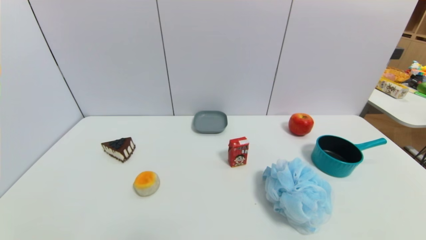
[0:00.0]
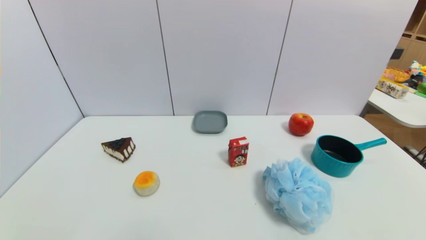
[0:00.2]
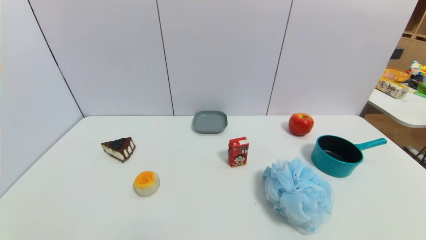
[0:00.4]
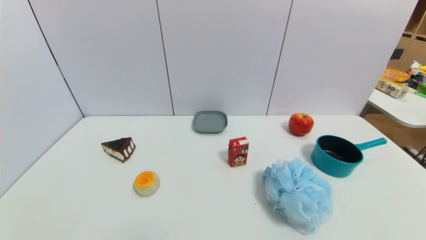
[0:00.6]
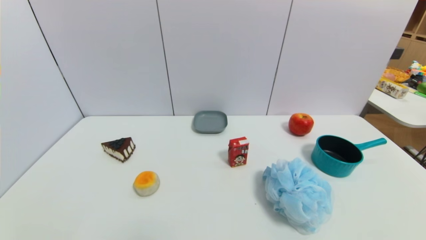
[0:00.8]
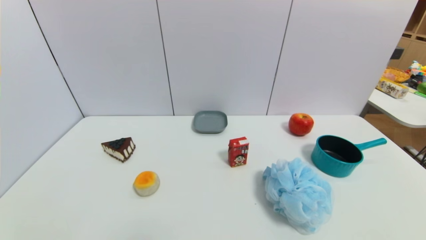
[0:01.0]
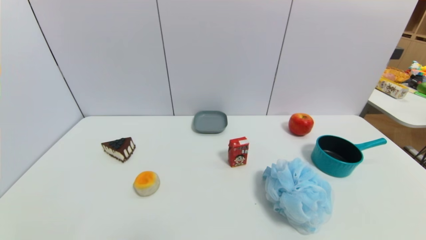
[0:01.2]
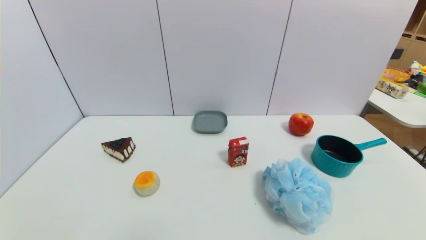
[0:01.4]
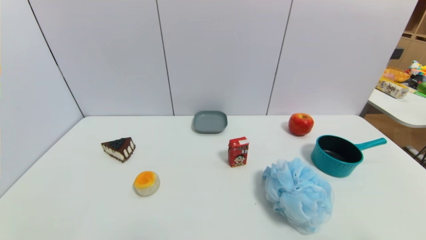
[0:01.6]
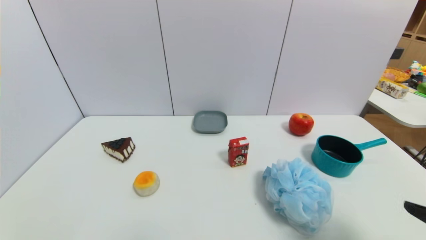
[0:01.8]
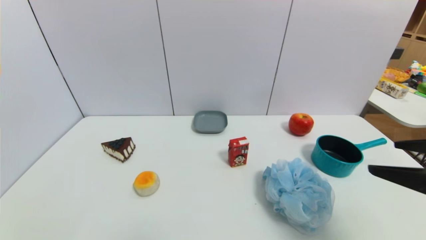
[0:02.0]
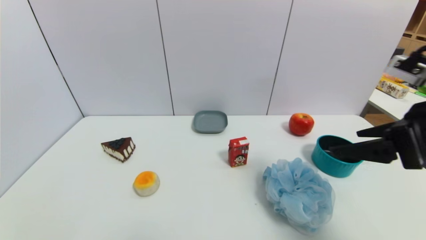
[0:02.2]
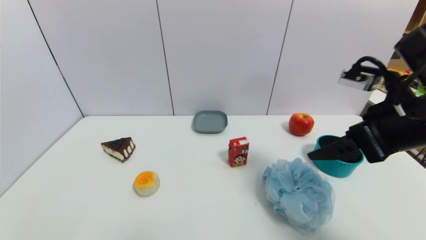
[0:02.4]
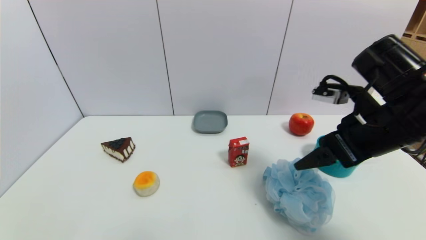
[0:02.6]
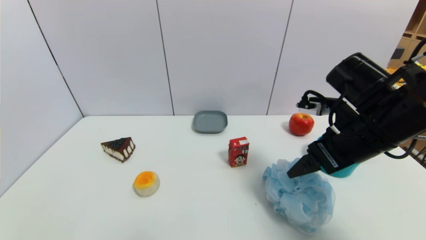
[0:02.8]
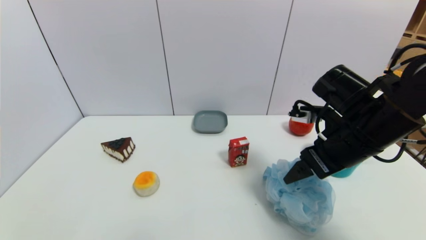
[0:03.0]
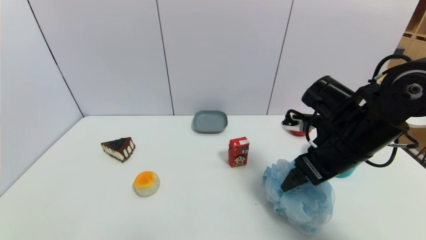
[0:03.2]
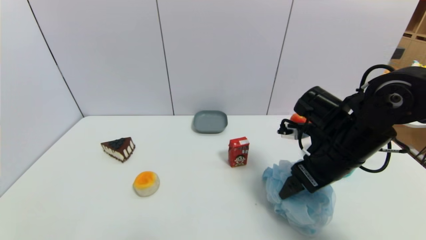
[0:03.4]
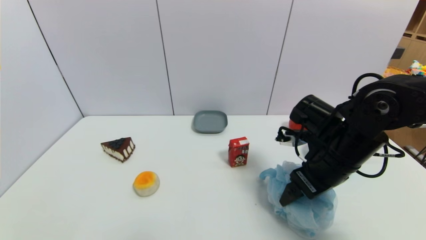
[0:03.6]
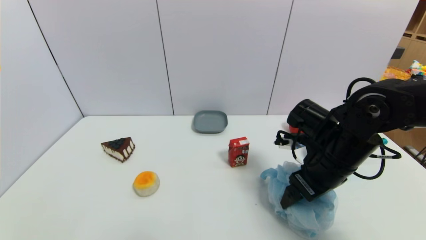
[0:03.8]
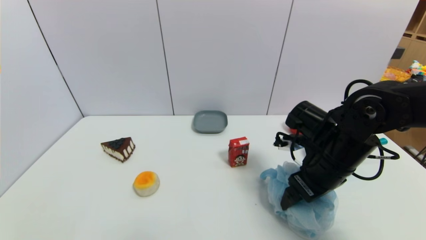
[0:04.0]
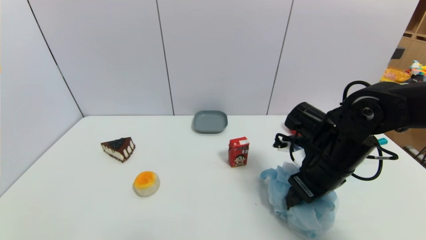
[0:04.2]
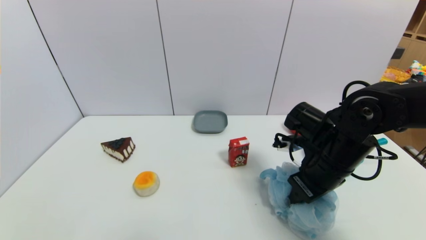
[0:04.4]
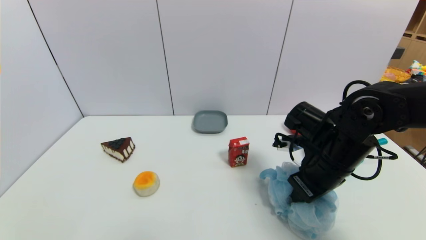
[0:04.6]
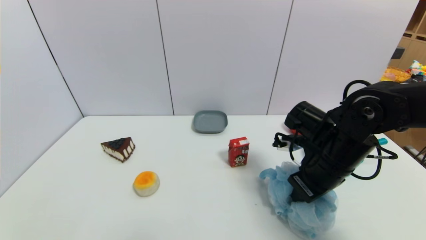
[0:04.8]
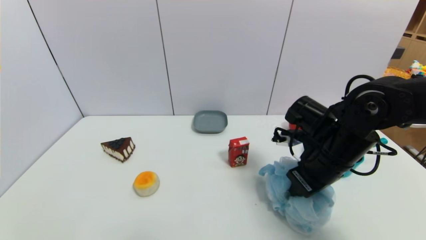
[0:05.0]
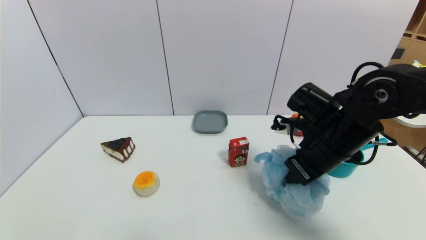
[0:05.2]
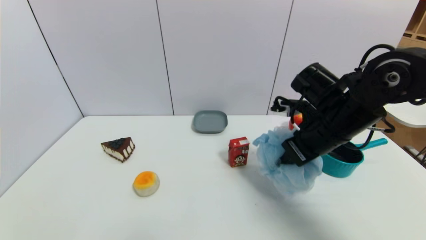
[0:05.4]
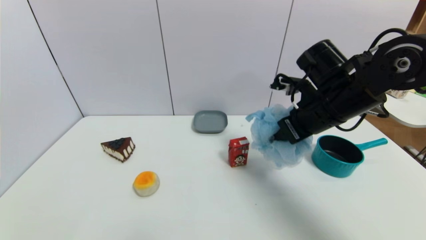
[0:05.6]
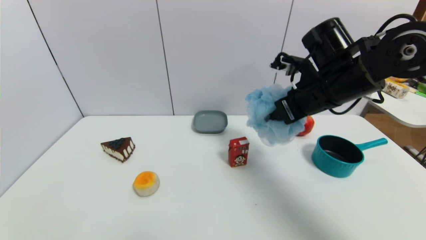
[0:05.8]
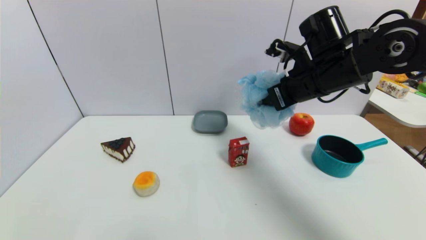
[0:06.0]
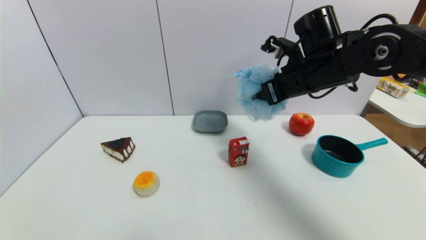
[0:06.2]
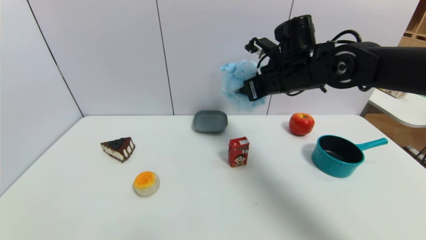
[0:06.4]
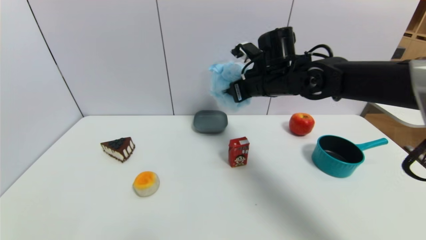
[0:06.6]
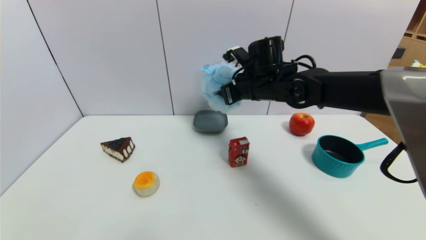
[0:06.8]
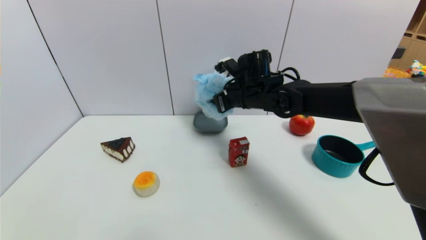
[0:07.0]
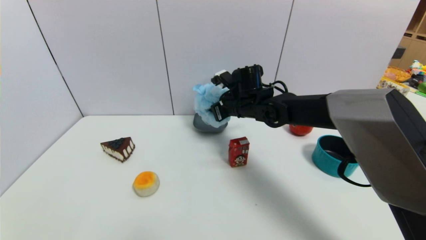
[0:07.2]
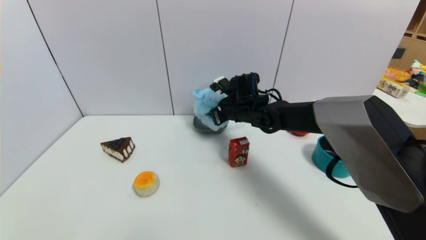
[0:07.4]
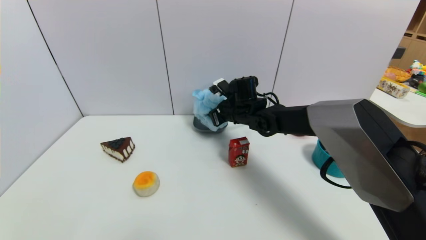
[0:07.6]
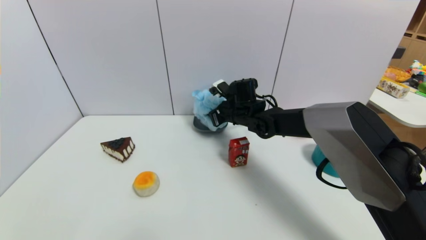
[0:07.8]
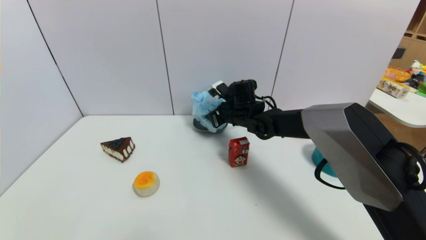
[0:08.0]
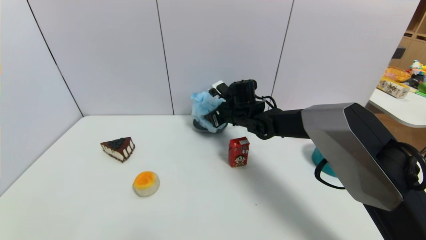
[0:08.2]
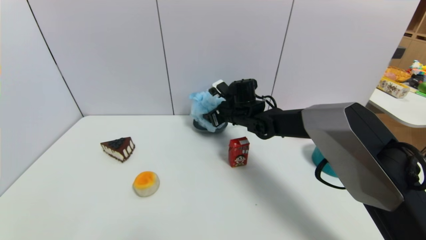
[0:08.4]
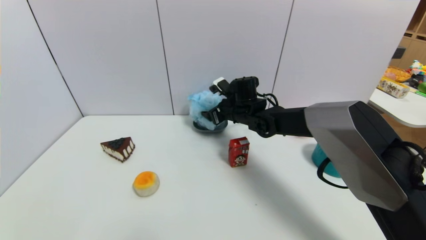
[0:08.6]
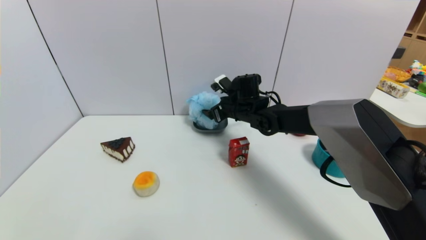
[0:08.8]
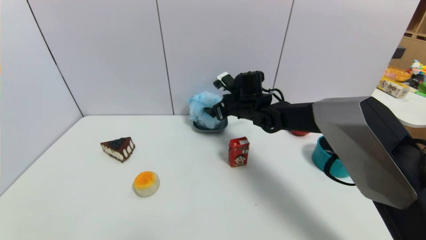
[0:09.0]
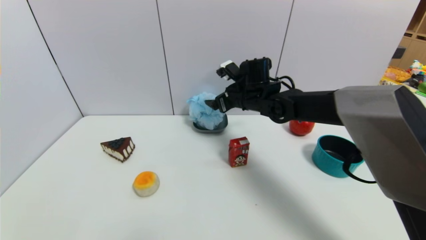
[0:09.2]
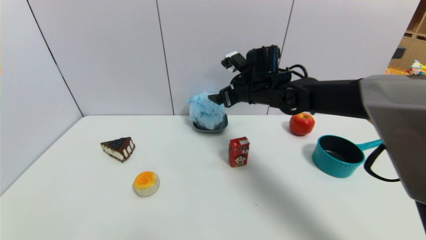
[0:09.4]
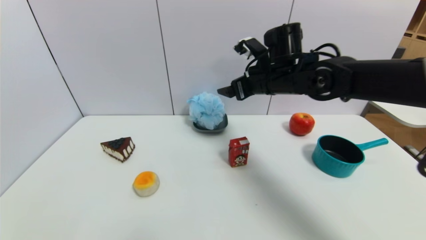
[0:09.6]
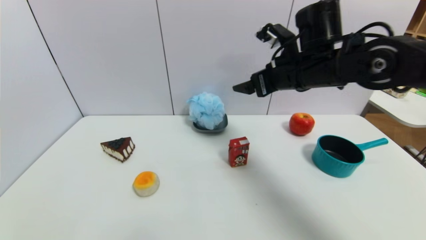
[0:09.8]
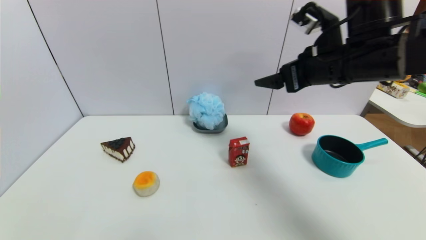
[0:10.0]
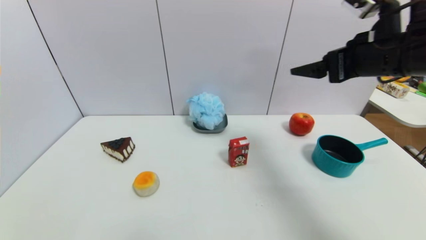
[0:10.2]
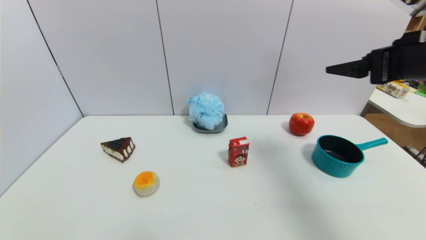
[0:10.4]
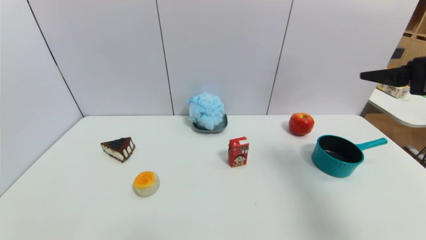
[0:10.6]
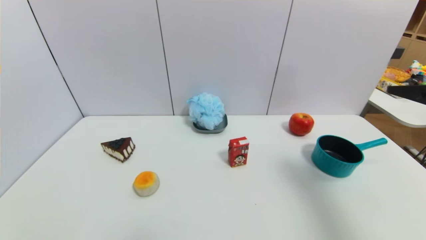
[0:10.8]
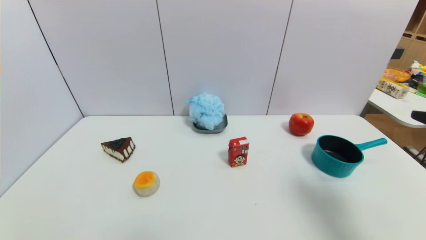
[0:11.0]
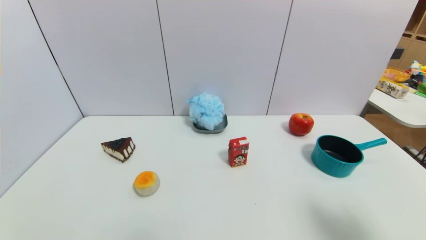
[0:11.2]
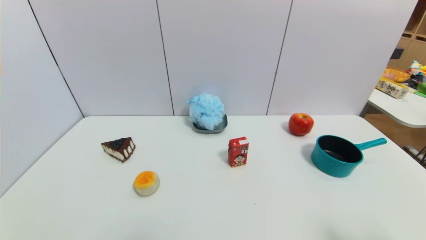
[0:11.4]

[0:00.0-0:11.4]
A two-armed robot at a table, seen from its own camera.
Task of the whole recording: use a gripper to pick the target object and place on the dish.
Step, 0:00.0 to 0:04.4: Grasp the shower sphere with the right gripper.
Step, 0:04.6 to 0:09.4: Place the shower sphere on the dish with the right gripper.
0:01.4 to 0:02.8: The right gripper is displaced forward and to the left by some 30 cm.
0:02.8 to 0:04.2: The right gripper goes roughly 10 cm downward, and closes up.
0:04.2 to 0:05.6: The right gripper is displaced upward by approximately 10 cm, and closes its fingers.
0:05.6 to 0:07.2: The right gripper goes about 20 cm forward, to the left and downward.
0:07.2 to 0:08.6: The right gripper opens up.
0:08.6 to 0:10.0: The right gripper goes roughly 25 cm upward, backward and to the right.
0:10.0 to 0:11.4: The right gripper goes about 30 cm backward, to the right and downward.

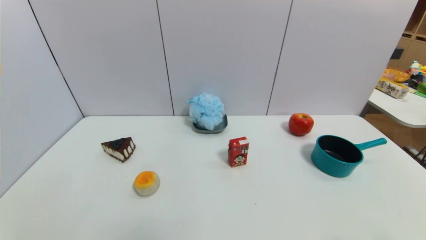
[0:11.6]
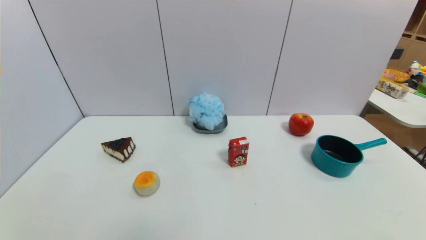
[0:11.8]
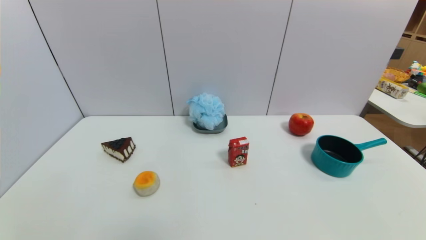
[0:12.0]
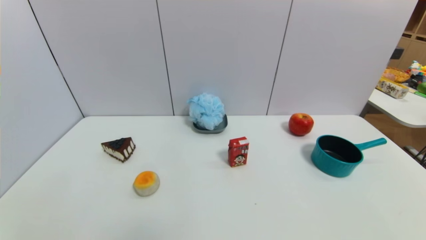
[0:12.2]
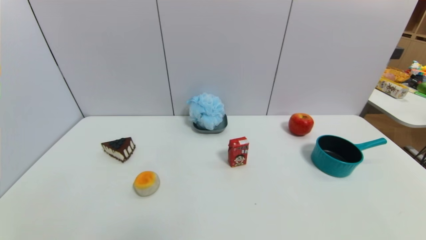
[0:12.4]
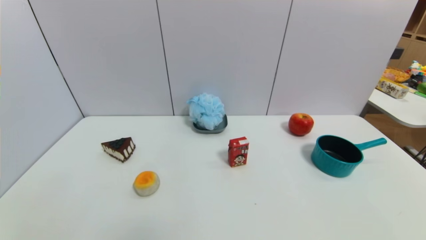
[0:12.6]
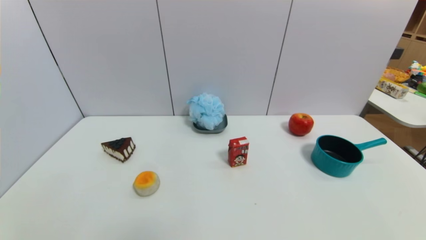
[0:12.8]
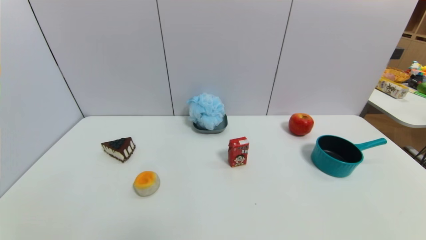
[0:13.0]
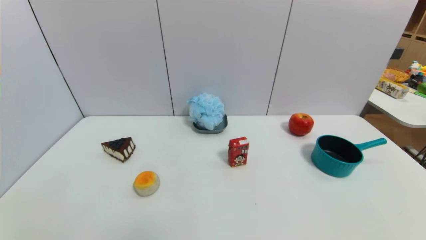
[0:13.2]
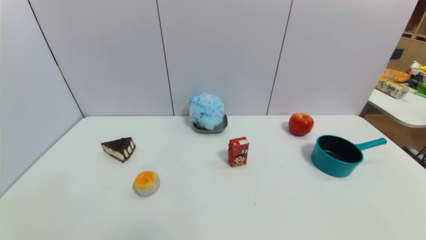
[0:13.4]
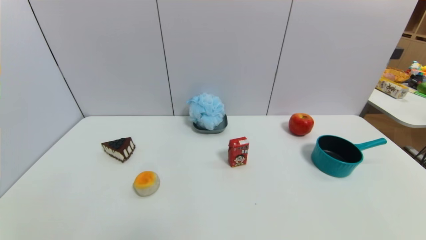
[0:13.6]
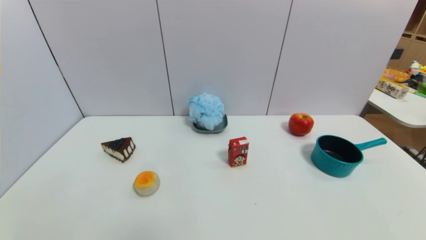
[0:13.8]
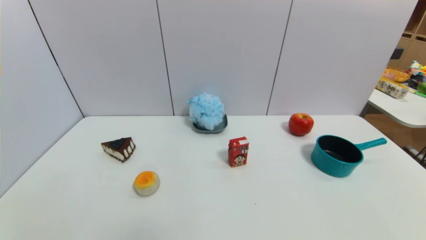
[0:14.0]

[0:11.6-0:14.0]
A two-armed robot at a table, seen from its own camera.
Task of the whole recording: use a gripper to pick the target object and place on the dish.
0:12.8 to 0:14.0: Neither gripper changes place.

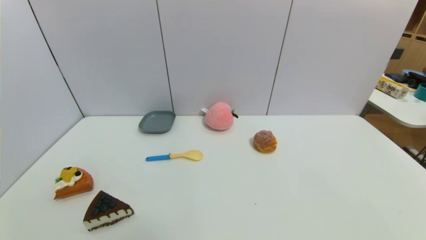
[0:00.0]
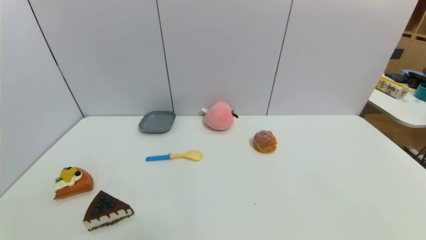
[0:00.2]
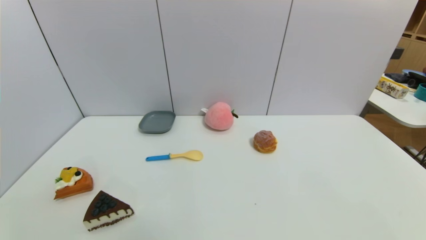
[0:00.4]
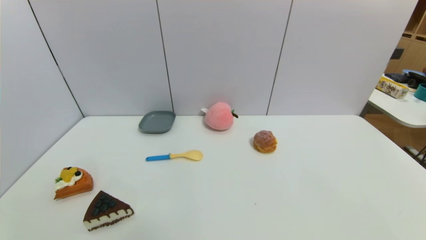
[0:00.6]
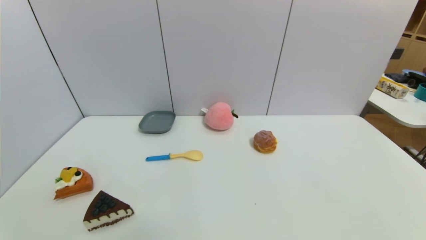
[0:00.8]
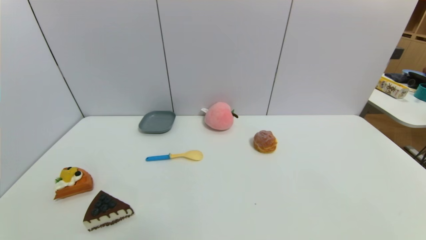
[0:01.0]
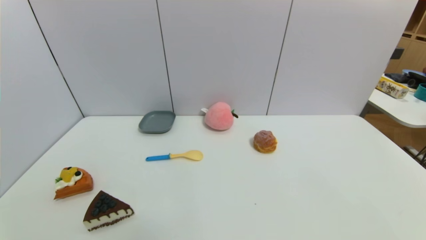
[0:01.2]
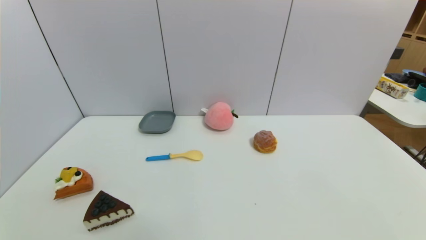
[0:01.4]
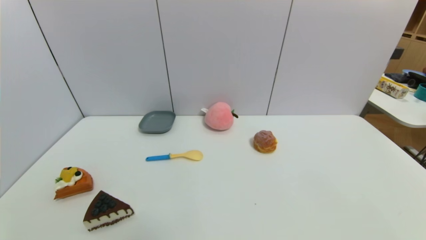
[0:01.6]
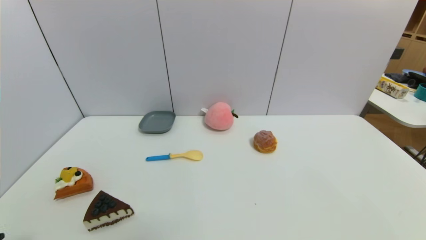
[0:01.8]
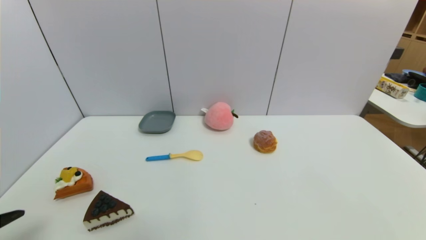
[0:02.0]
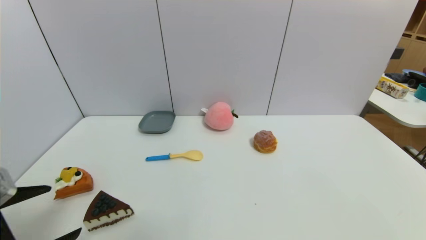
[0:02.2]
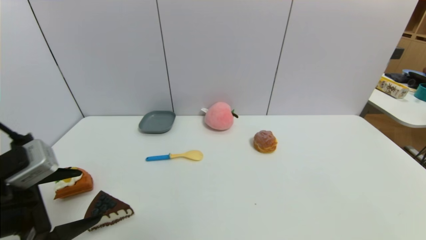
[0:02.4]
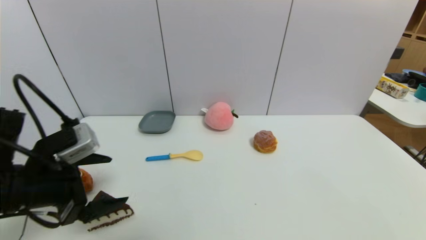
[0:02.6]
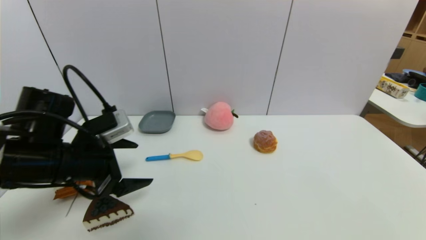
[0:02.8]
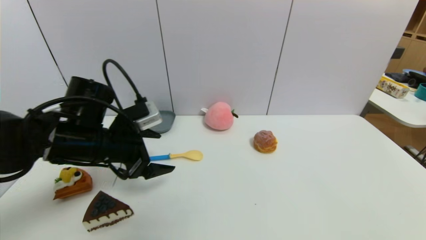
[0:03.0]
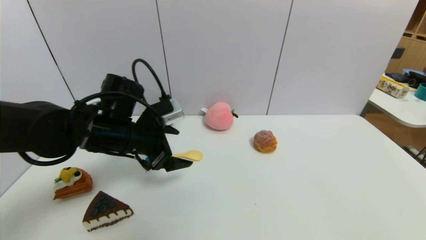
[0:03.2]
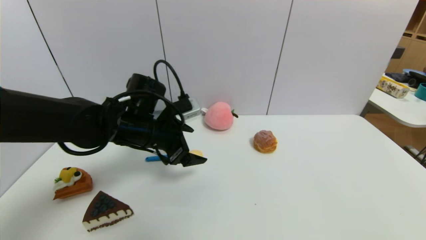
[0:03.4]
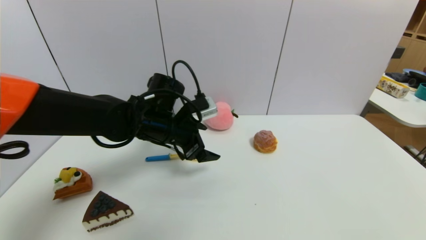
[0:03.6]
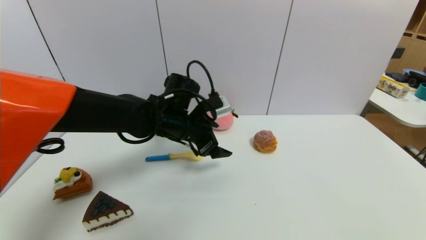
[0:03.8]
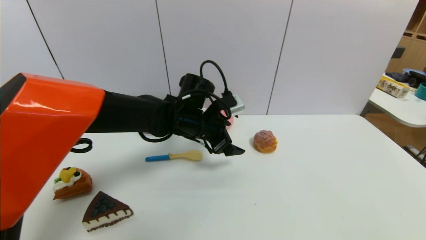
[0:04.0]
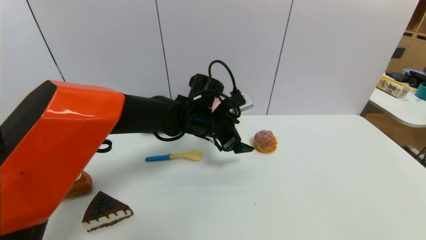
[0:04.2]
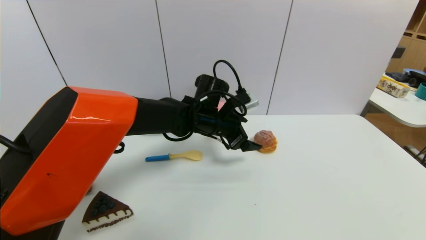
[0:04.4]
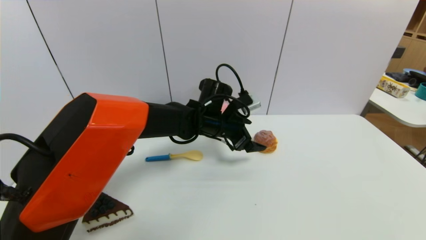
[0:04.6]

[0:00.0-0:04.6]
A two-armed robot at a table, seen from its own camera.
Task of the whole recording: use a gripper to pick the target object and place on the dish.
0:01.6 to 0:03.0: The left gripper is displaced forward and to the right by approximately 30 cm.
0:03.0 to 0:04.6: The left gripper travels to the right and forward by approximately 25 cm.
